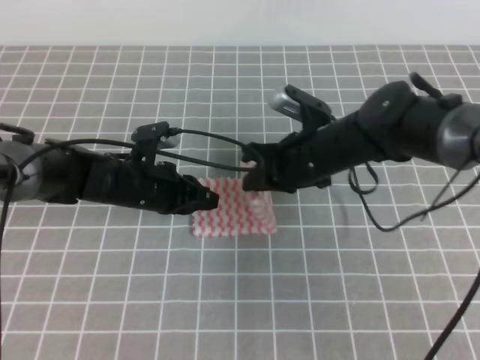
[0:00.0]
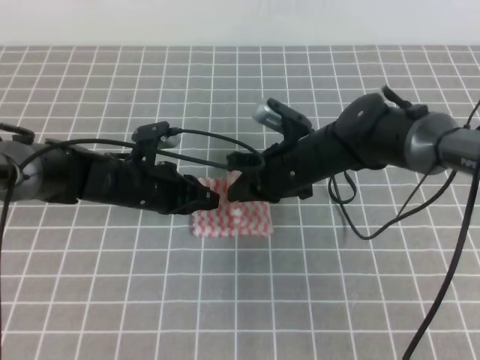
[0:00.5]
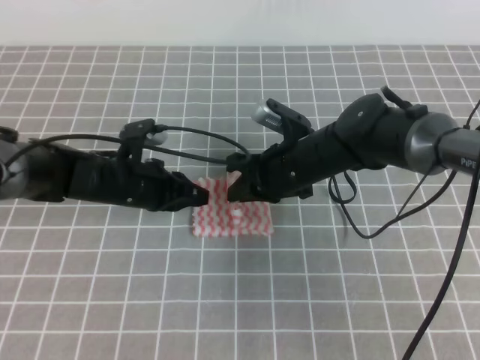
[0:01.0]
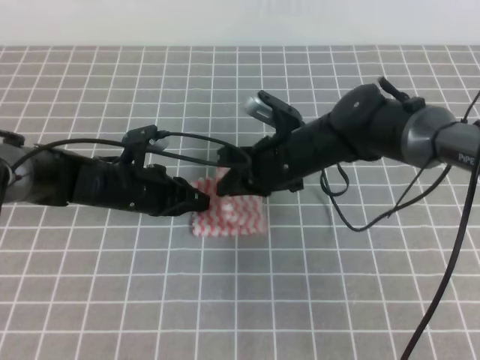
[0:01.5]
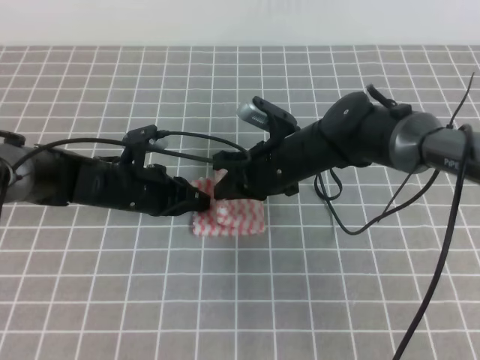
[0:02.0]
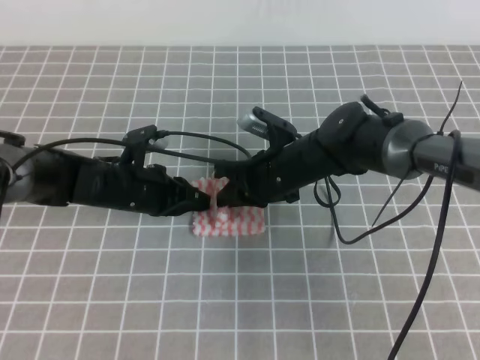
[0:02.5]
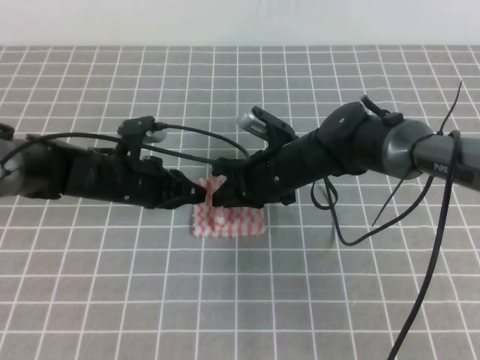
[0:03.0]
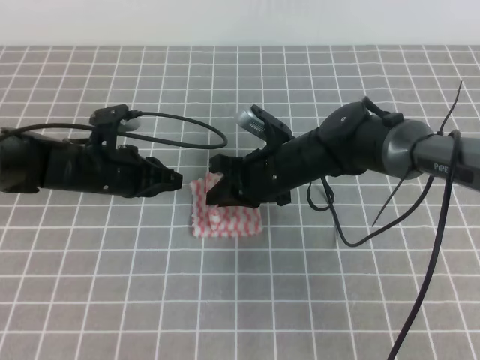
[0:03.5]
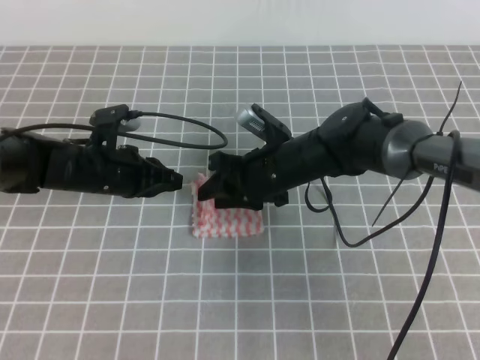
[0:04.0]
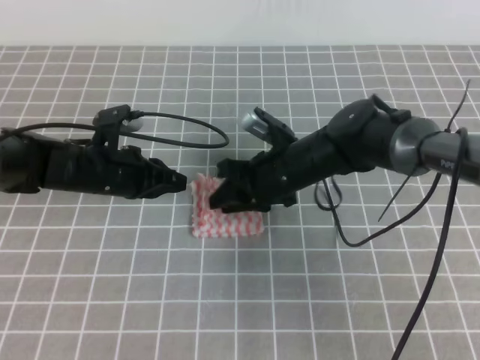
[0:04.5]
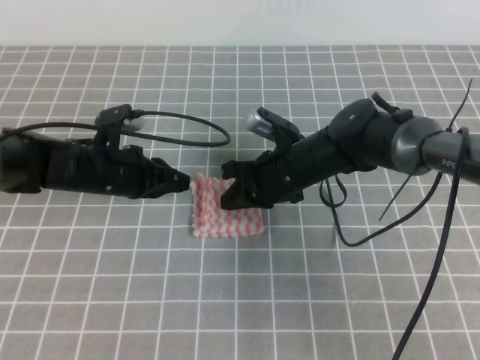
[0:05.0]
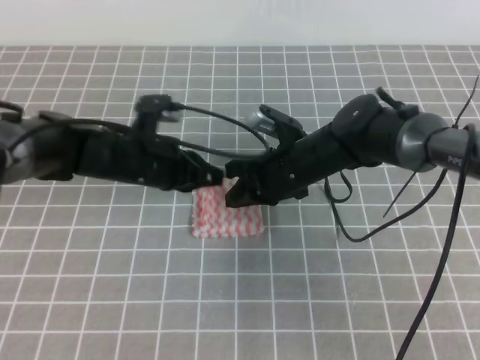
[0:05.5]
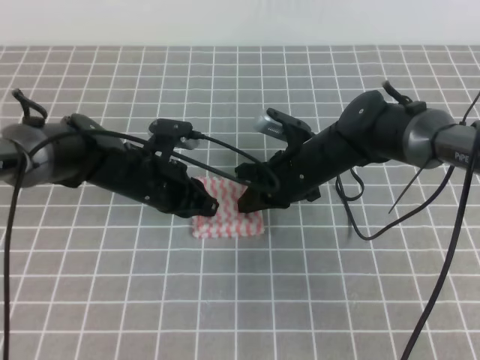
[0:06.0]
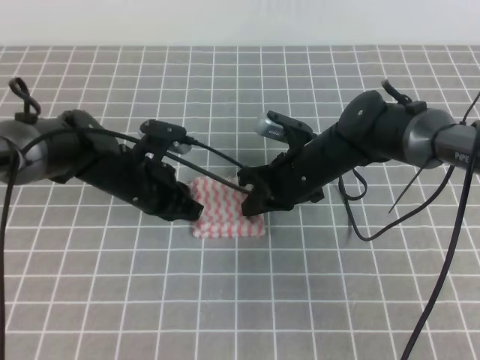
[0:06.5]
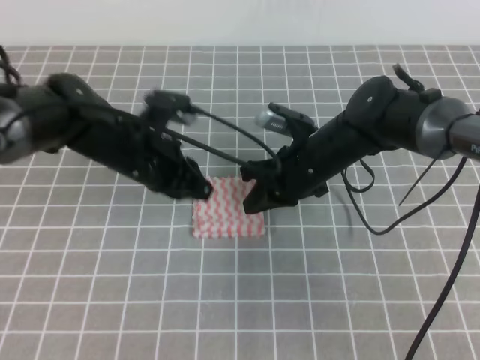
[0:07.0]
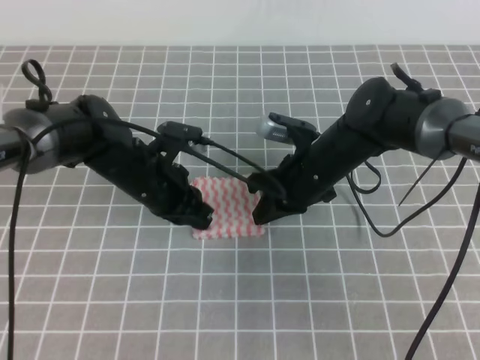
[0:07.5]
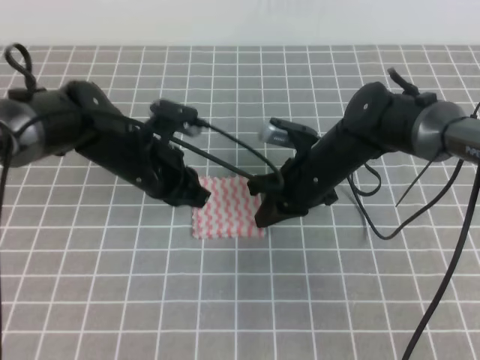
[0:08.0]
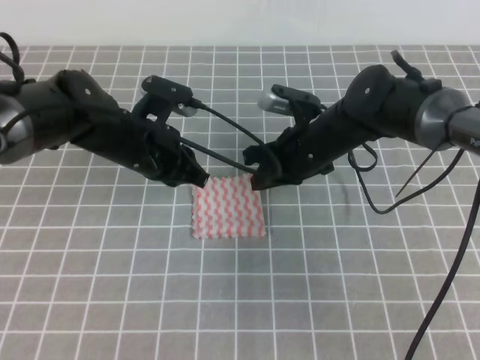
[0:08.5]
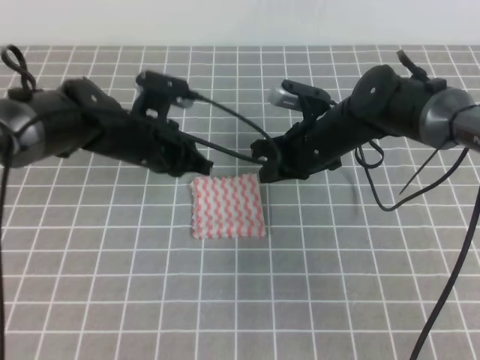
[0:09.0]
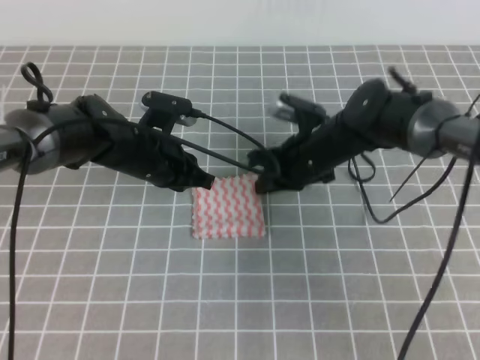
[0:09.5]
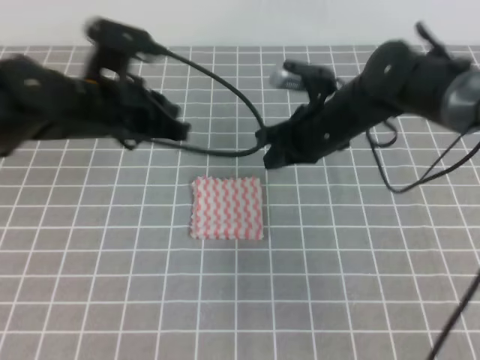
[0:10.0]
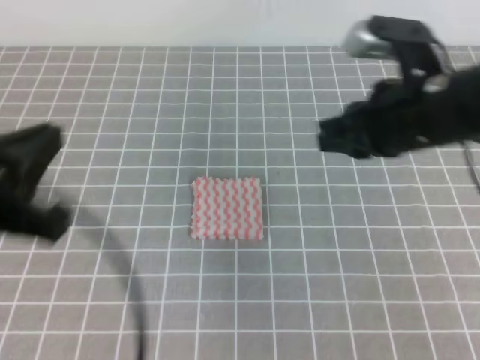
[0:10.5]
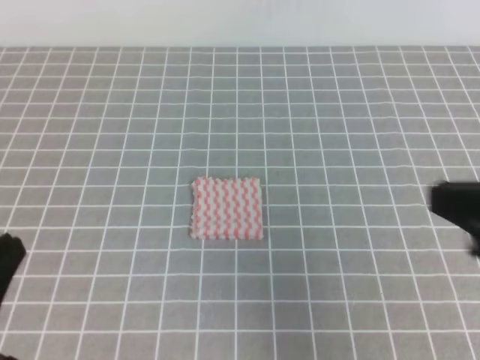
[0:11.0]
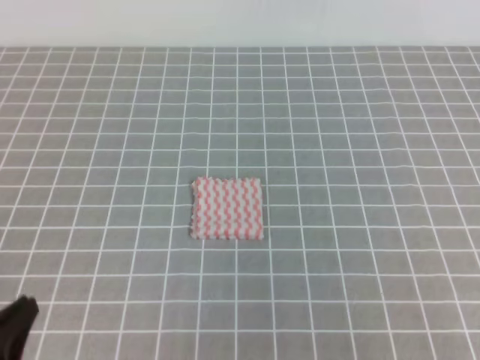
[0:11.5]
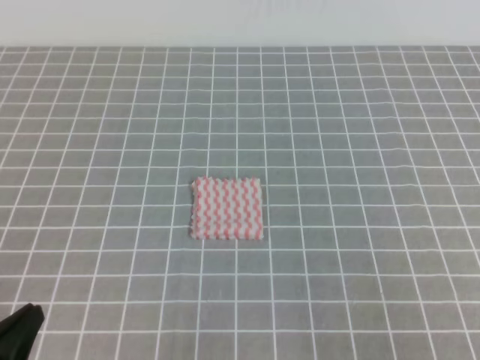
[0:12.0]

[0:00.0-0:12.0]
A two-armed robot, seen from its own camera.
0:00.0 to 0:02.0: There are only small adjustments of the grippers.
0:02.0 to 0:04.0: The right gripper opens its fingers.
0:04.0 to 0:06.0: The right gripper closes up. The left gripper heads to the right, covering approximately 5 cm.
0:06.0 to 0:08.0: There are only small adjustments of the grippers.
0:08.0 to 0:10.0: The left gripper is displaced upward by some 10 cm; the right gripper changes place by roughly 5 cm.
0:10.0 to 0:12.0: The right gripper is displaced backward and to the right by about 40 cm. The left gripper heads backward and to the left, covering about 30 cm.

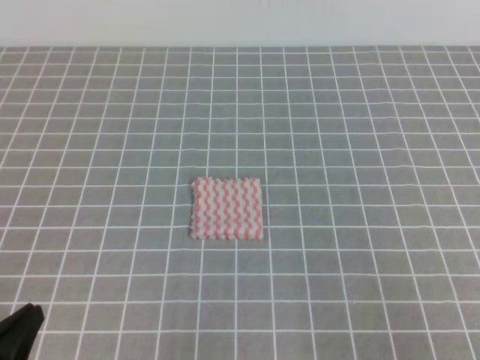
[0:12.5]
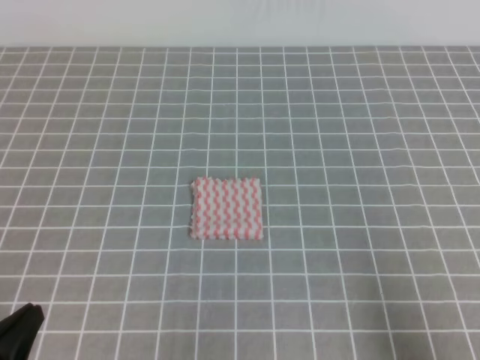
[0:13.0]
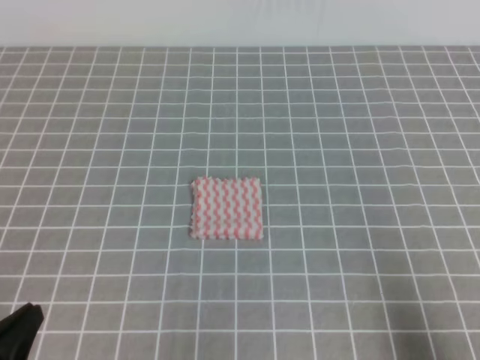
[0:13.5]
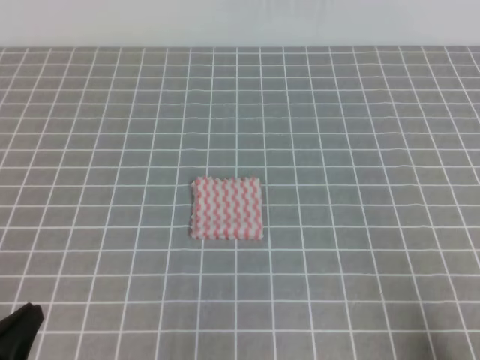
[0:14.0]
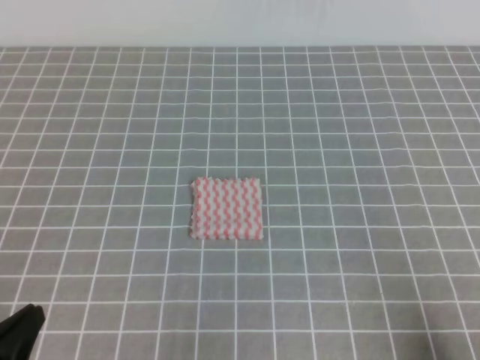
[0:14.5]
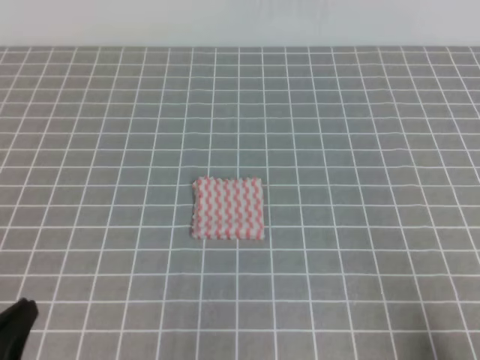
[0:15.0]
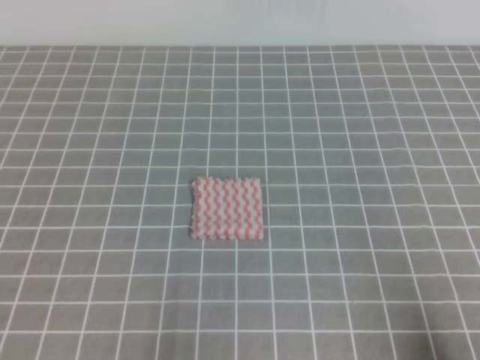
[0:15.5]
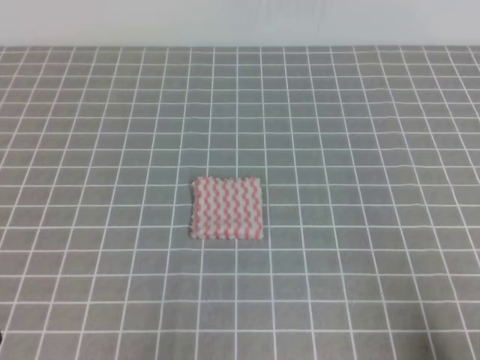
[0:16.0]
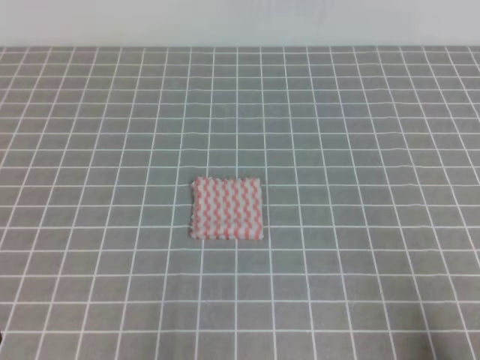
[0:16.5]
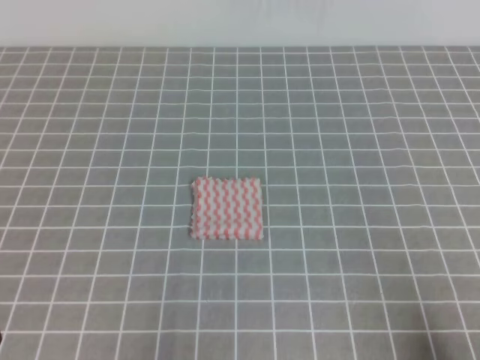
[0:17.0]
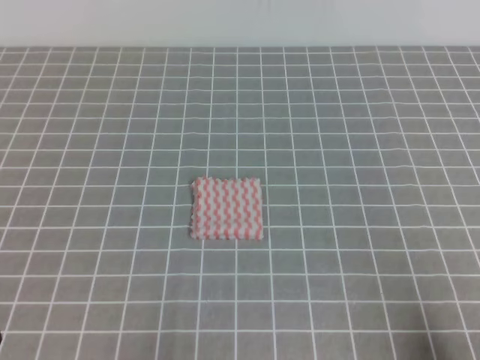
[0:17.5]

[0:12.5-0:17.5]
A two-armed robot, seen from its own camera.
Step, 0:12.5 to 0:17.5: Fold the towel.
0:12.5 to 0:15.0: The right gripper travels downward by some 5 cm.
0:15.0 to 0:17.5: The grippers make only small movements.
